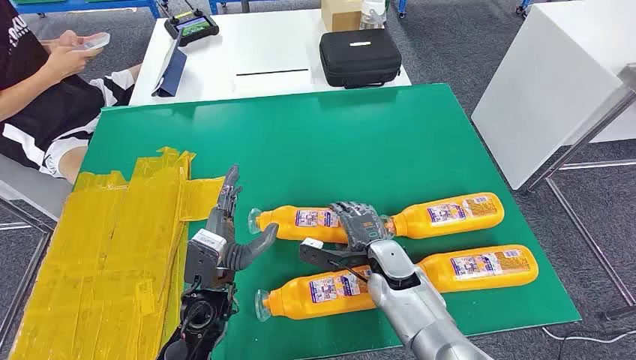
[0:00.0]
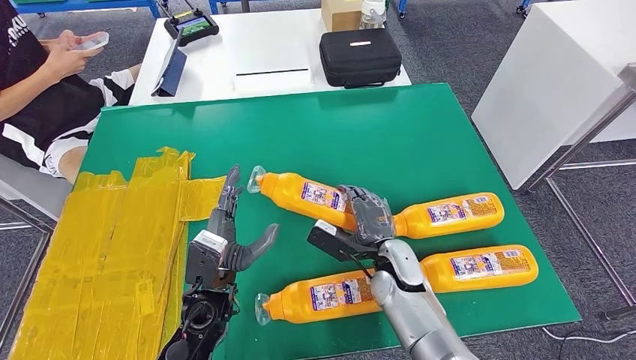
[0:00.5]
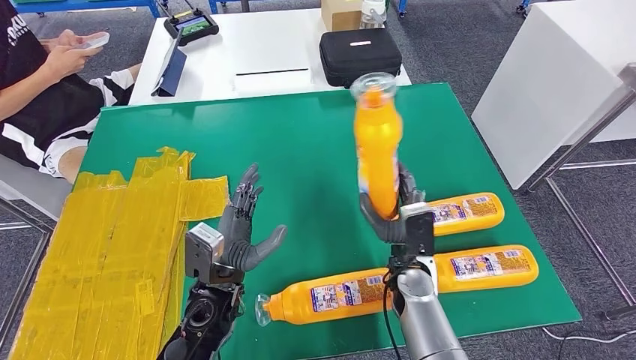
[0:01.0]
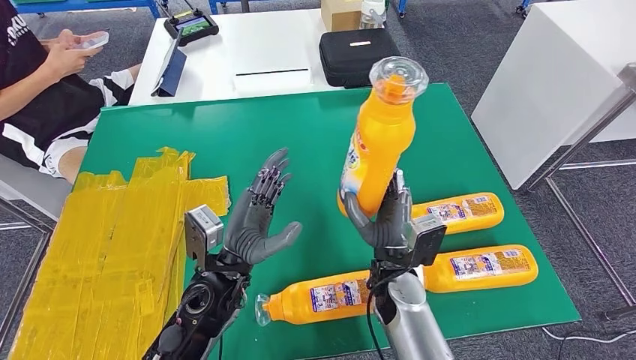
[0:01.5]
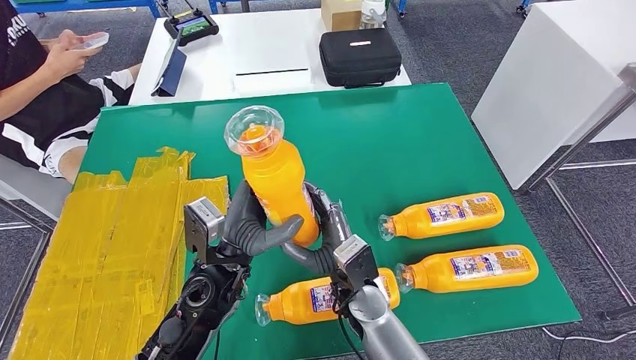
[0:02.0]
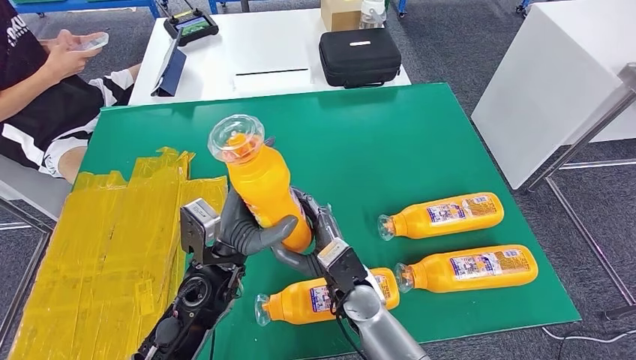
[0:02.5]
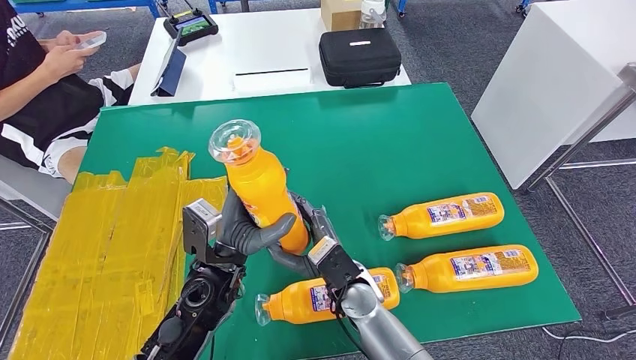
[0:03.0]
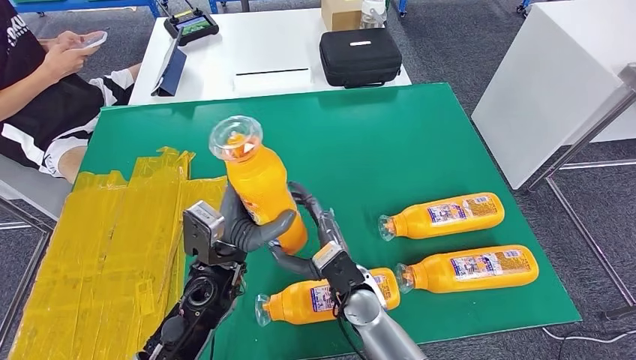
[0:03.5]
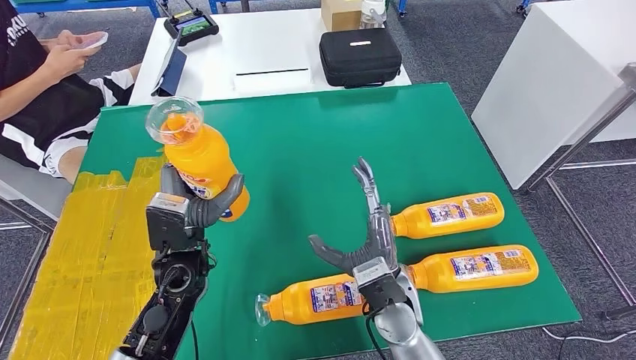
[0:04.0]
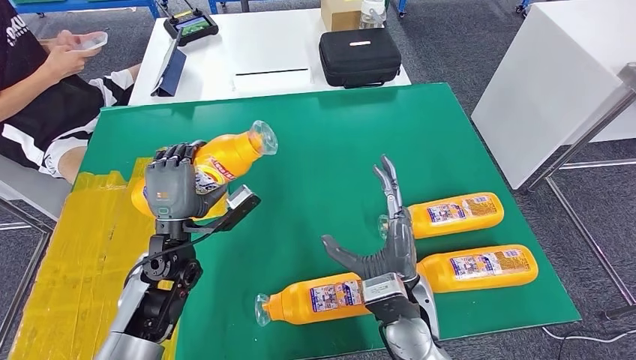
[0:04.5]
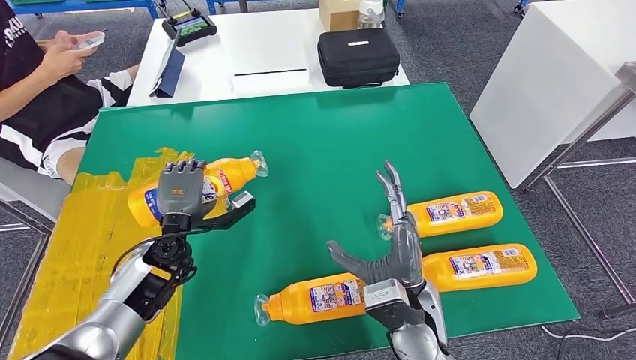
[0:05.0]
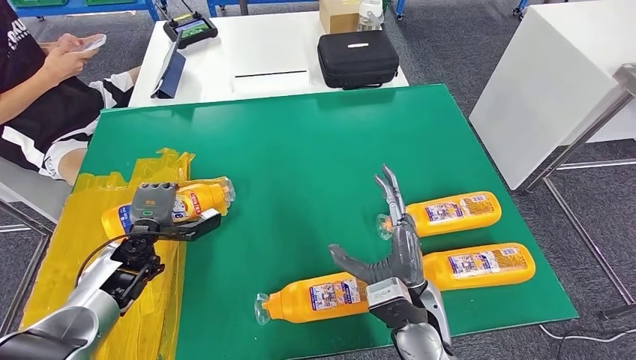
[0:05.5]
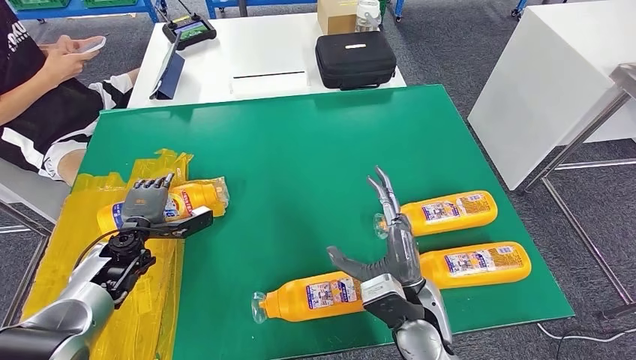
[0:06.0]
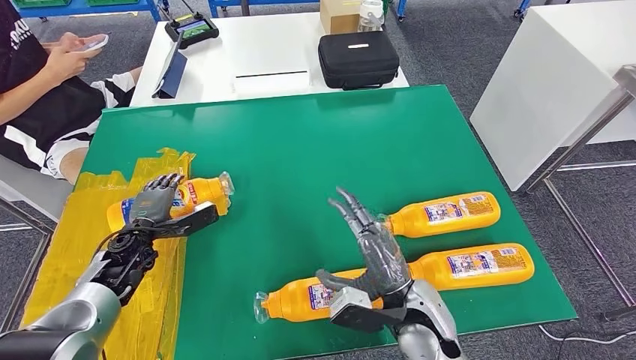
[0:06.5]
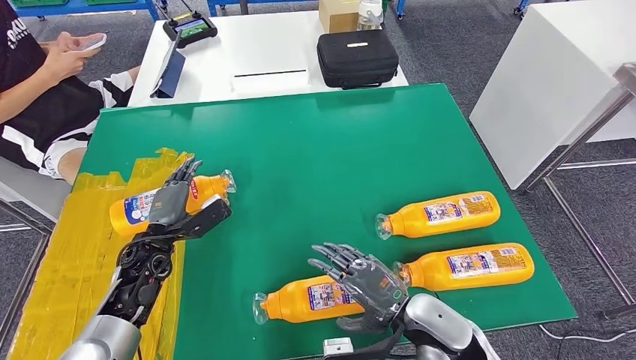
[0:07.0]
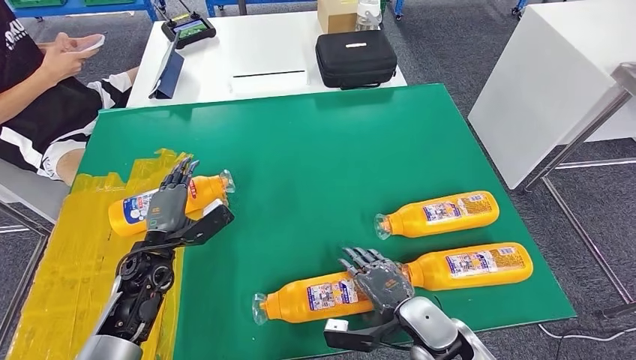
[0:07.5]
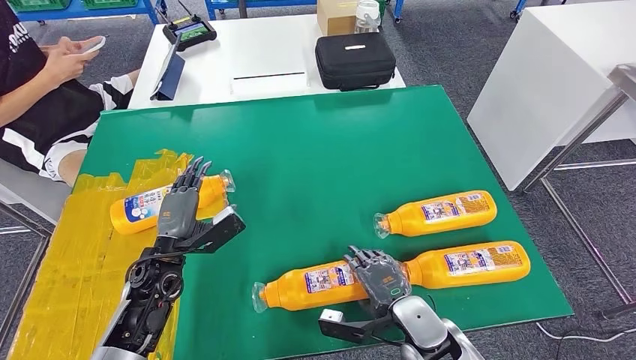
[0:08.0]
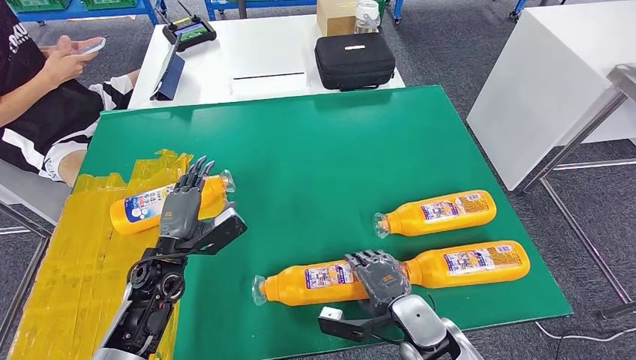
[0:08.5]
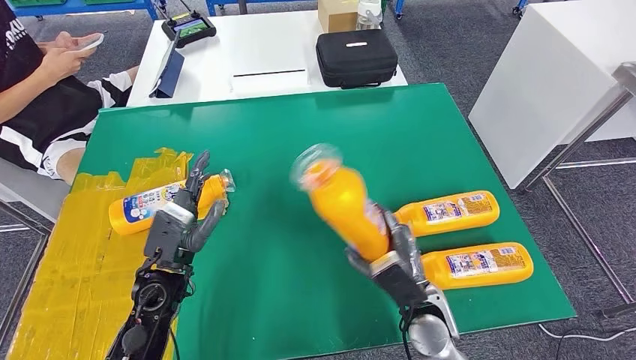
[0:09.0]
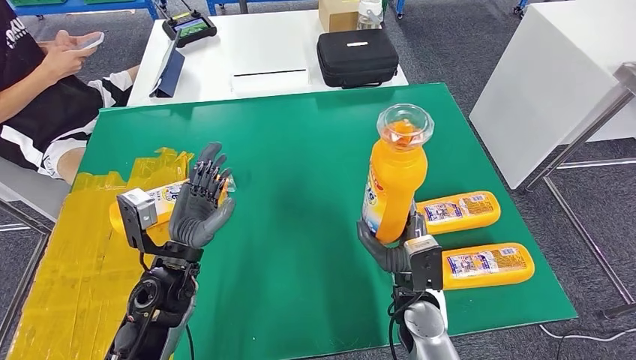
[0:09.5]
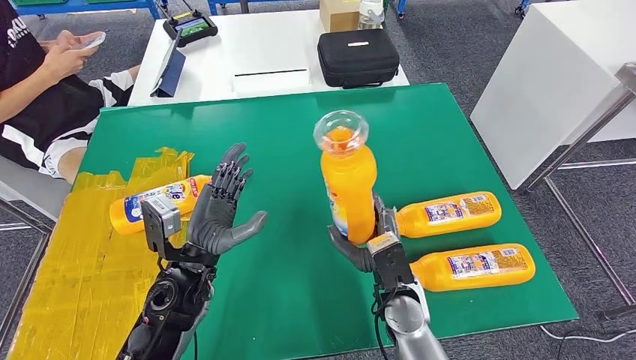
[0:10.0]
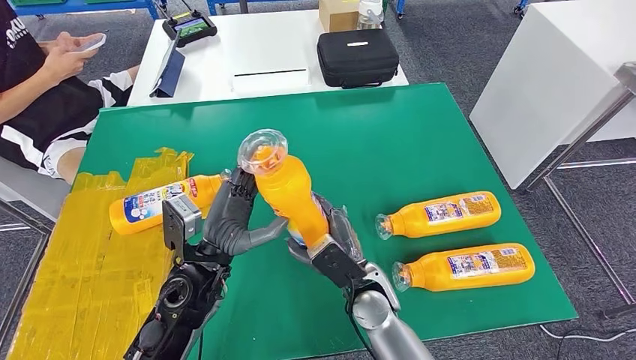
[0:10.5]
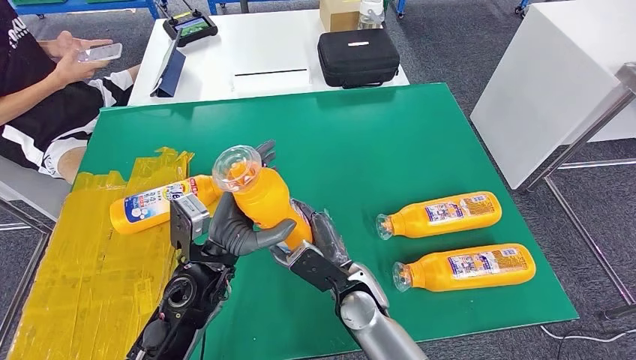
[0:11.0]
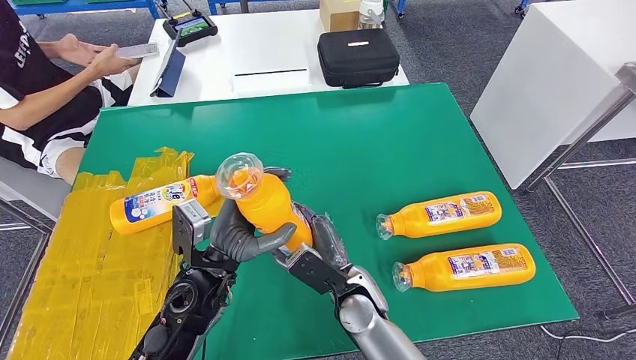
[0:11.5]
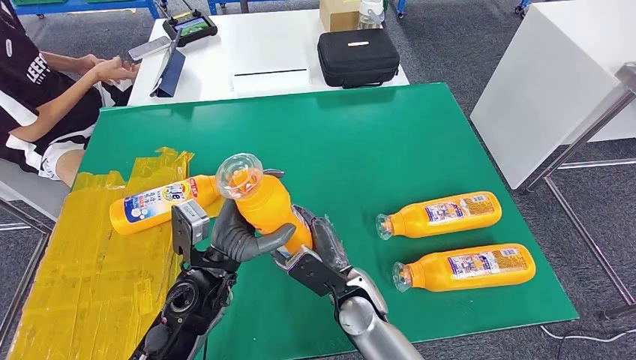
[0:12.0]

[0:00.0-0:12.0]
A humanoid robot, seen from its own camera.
Step, 0:00.0 to 0:01.0: Take the fast-moving consumer goods bottle from the table.
Step, 0:03.5 to 0:07.0: Flip the fast-moving consumer goods bottle to the front side.
Step, 0:08.0 to 0:09.5: Pick up the fast-moving consumer goods bottle from the table.
0:02.0 to 0:04.0: The right hand heads to the right, covering approximately 5 cm; the left hand goes roughly 5 cm to the left.
0:06.0 to 0:08.0: The right hand goes about 10 cm downward. The left hand moves to the right and backward, about 10 cm.
0:10.0 to 0:12.0: The right hand shifts about 5 cm to the left.

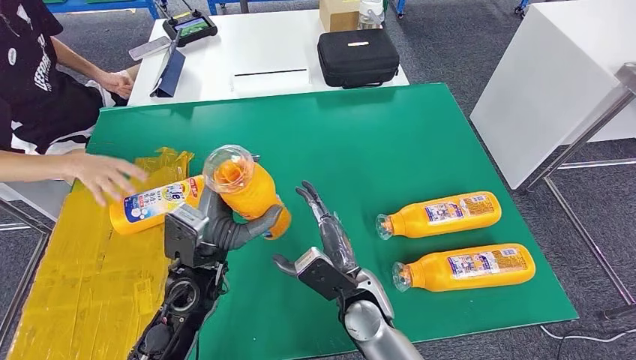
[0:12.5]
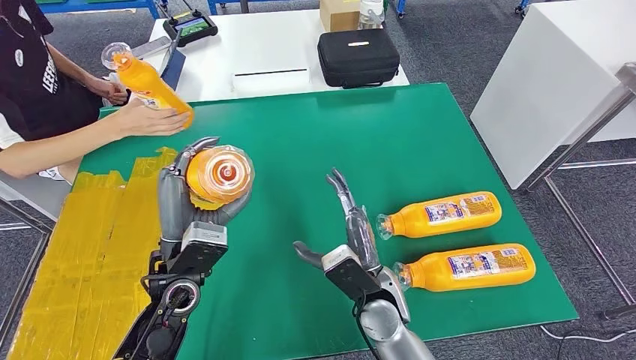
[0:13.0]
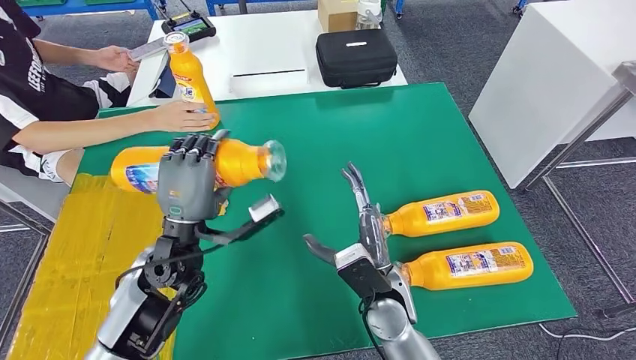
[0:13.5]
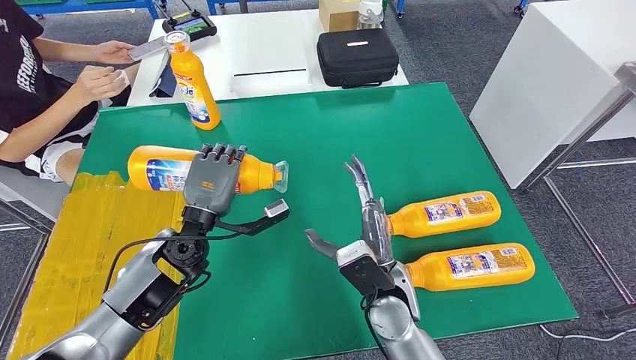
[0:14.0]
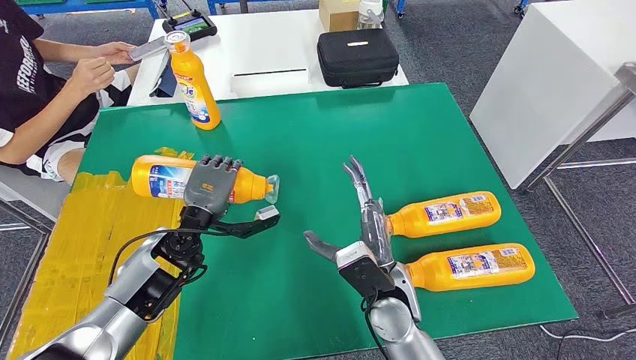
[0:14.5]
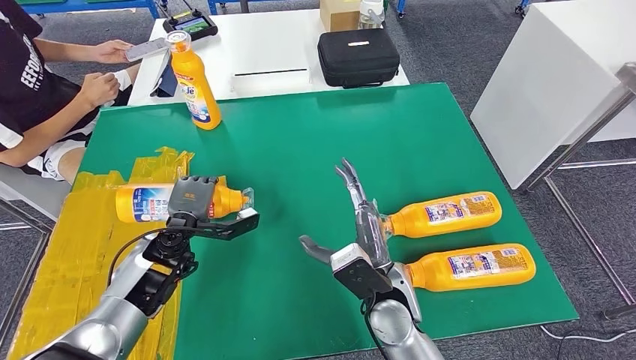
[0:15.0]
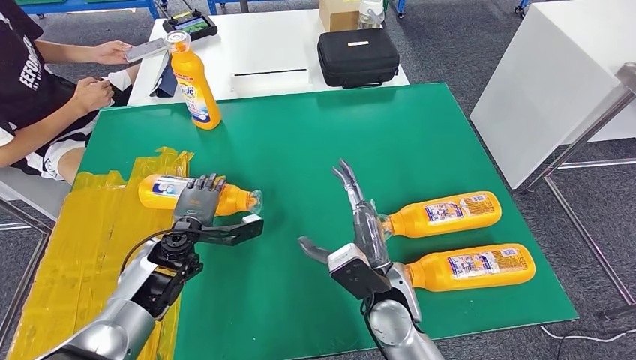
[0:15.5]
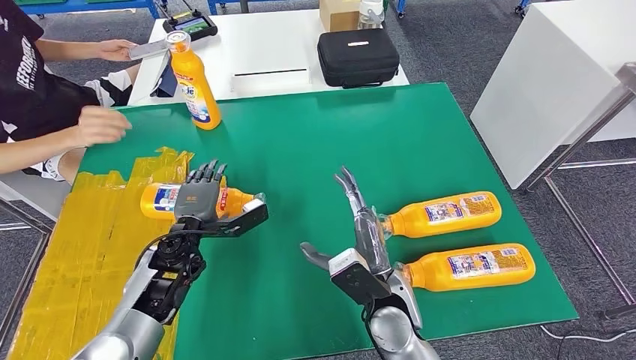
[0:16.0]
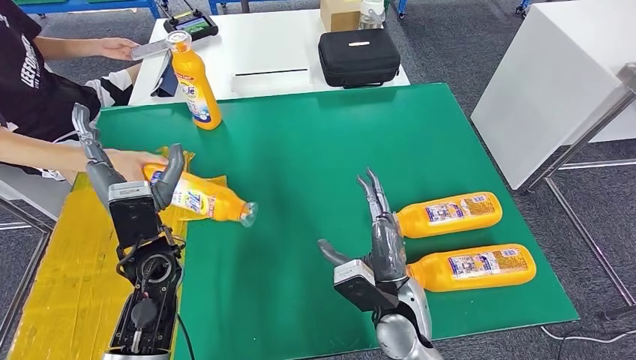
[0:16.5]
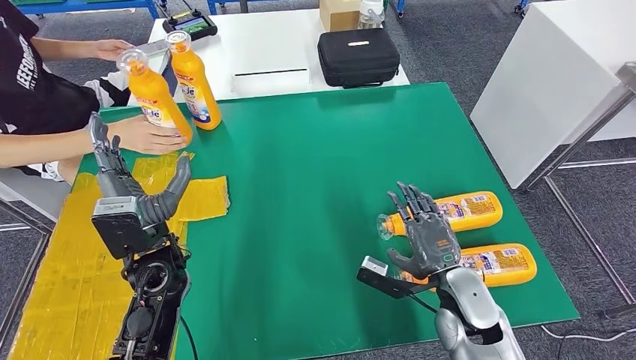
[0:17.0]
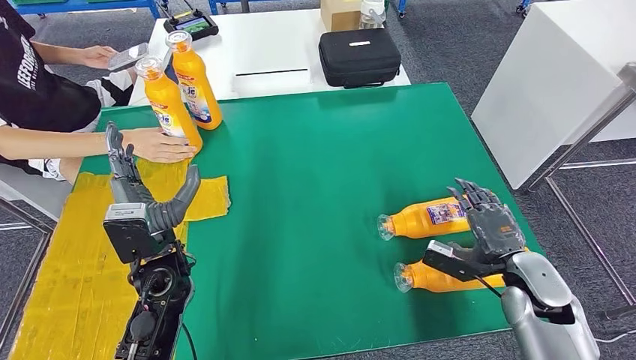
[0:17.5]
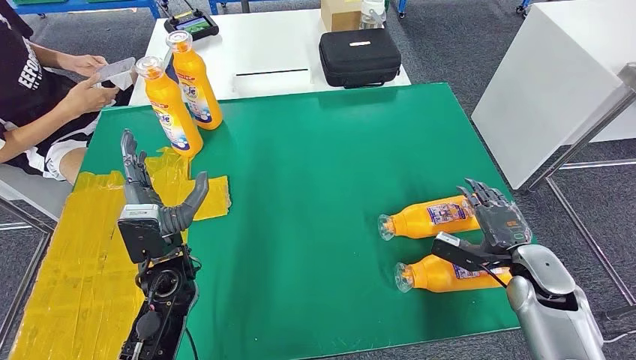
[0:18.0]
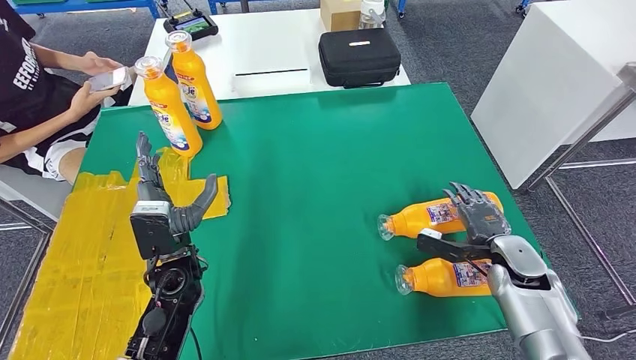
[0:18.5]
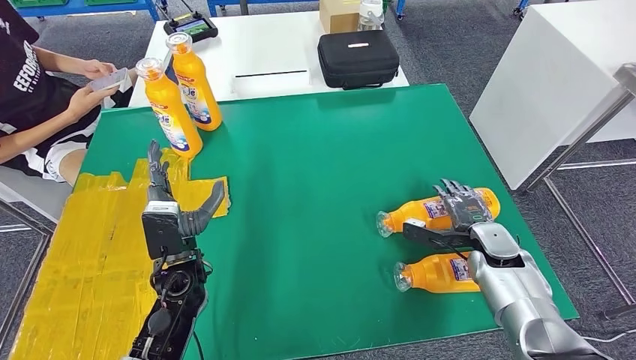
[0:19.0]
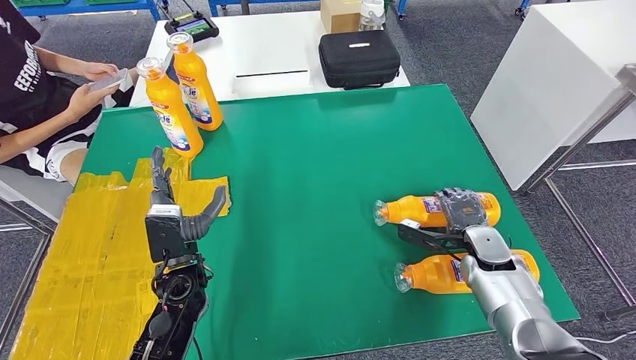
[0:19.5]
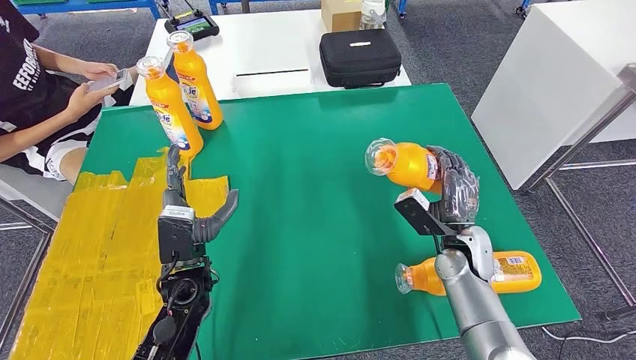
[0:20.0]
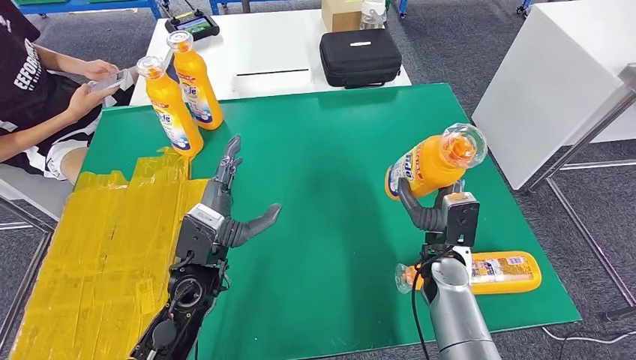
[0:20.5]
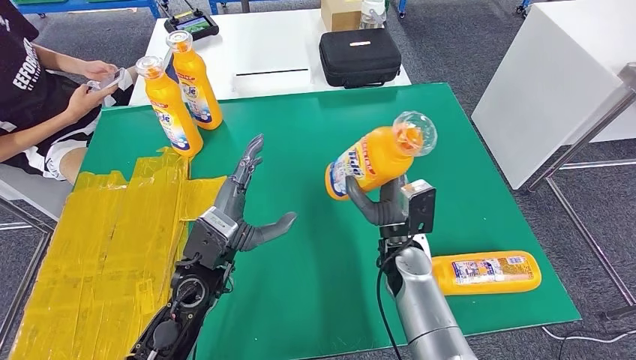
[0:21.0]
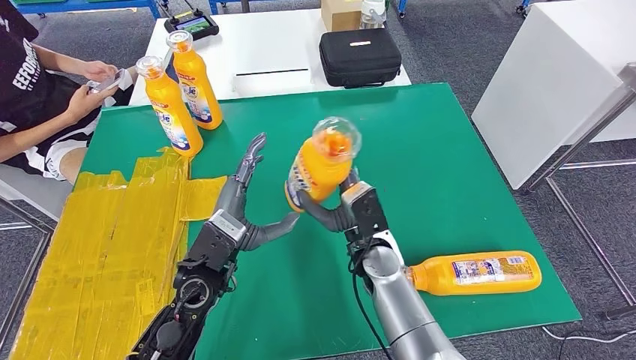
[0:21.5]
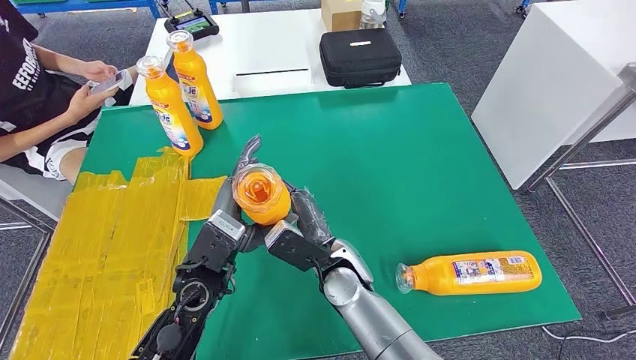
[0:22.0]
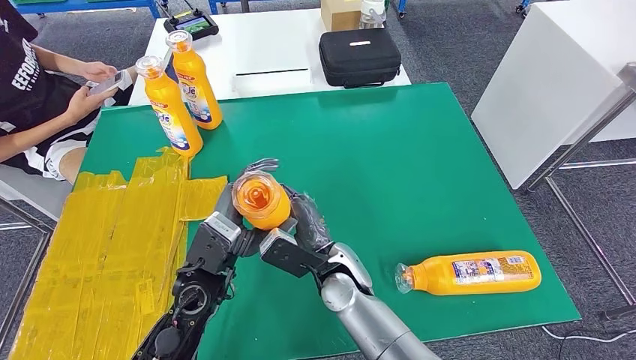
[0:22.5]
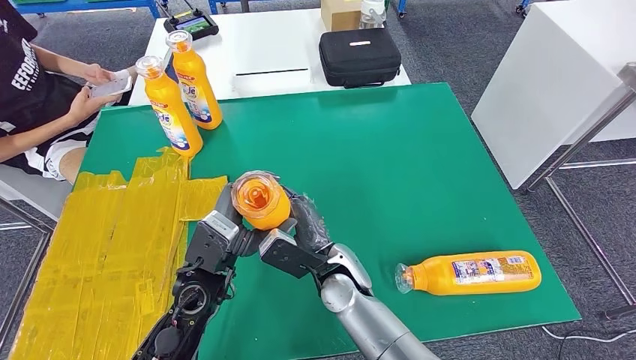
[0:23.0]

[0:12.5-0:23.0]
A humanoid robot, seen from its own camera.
Step, 0:12.5 to 0:16.0: Flip the fast-moving consumer goods bottle to the front side.
Step, 0:19.0 to 0:21.0: Pick up the fast-moving consumer goods bottle from the table.
0:14.5 to 0:16.5: The left hand heads upward and backward, covering about 10 cm.
0:21.0 to 0:23.0: The right hand is displaced to the left by some 10 cm.
